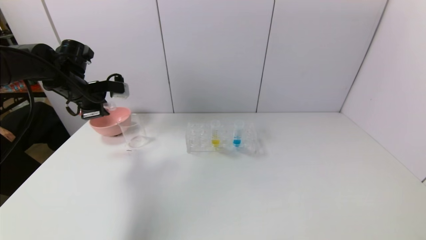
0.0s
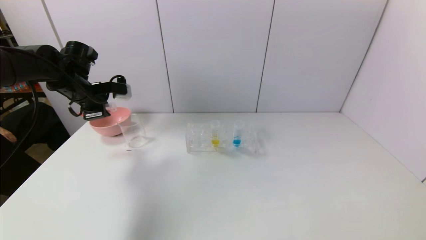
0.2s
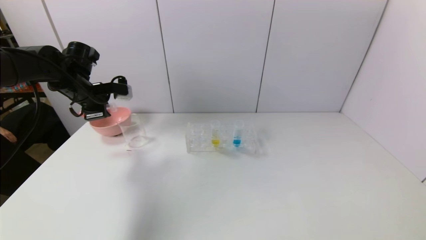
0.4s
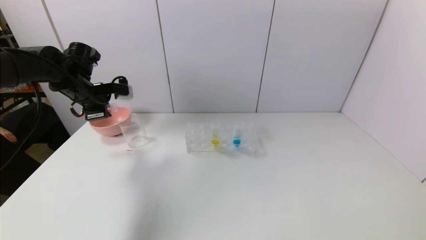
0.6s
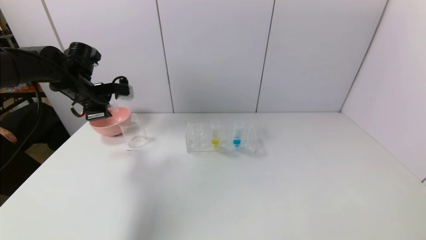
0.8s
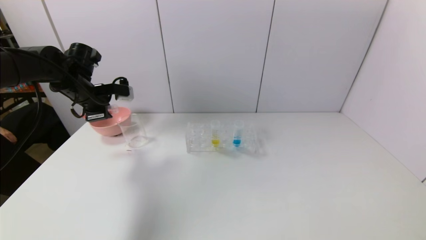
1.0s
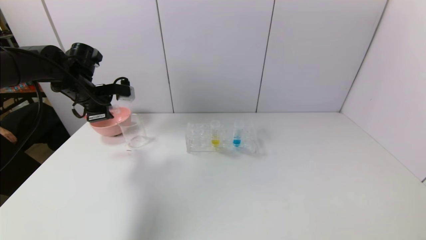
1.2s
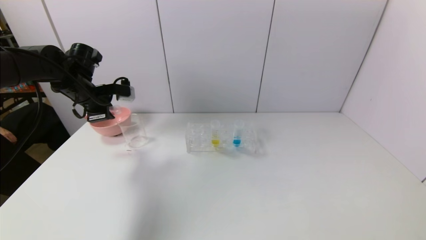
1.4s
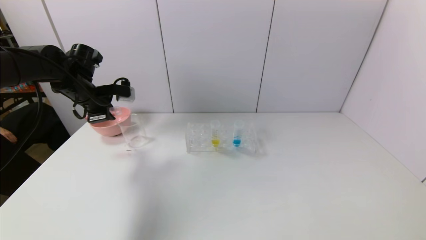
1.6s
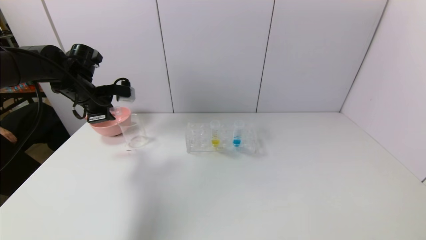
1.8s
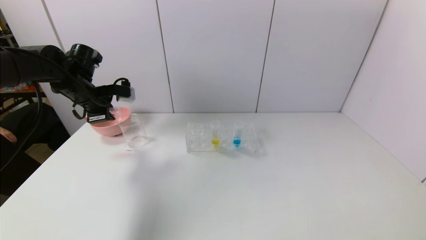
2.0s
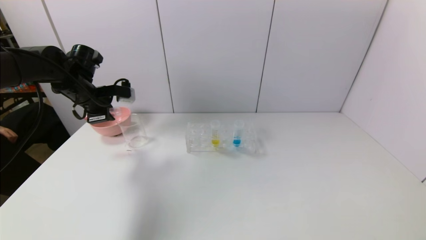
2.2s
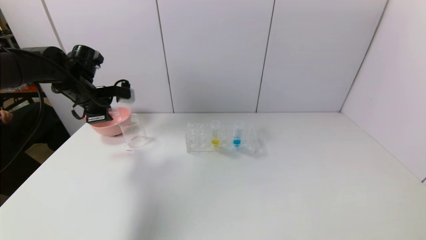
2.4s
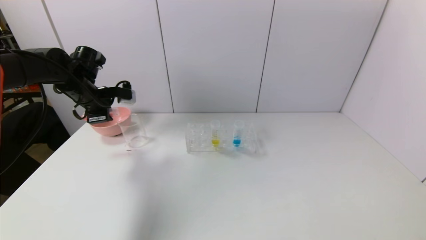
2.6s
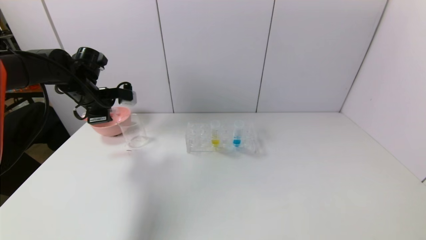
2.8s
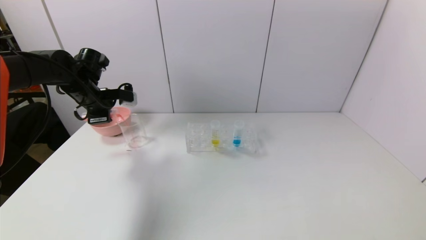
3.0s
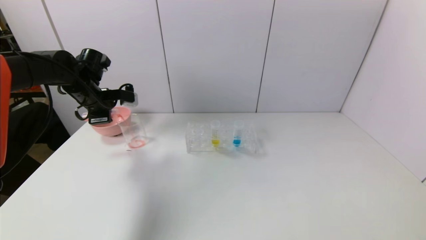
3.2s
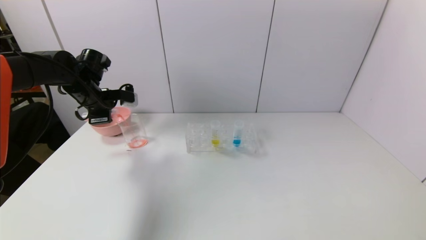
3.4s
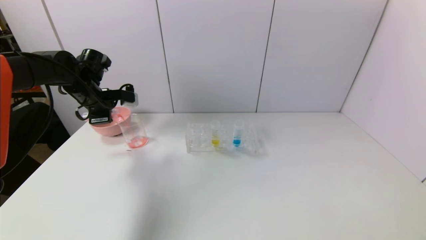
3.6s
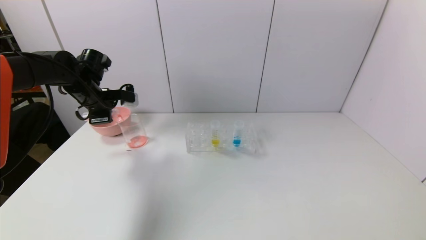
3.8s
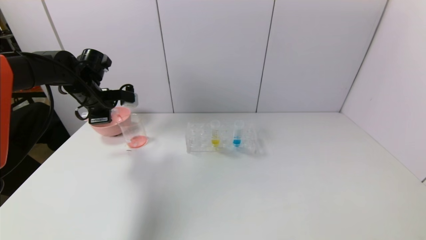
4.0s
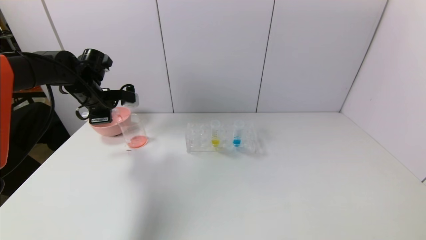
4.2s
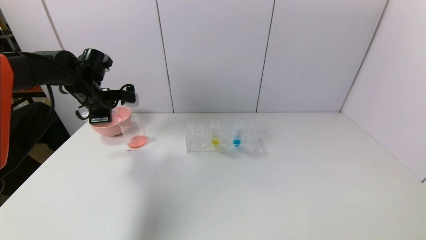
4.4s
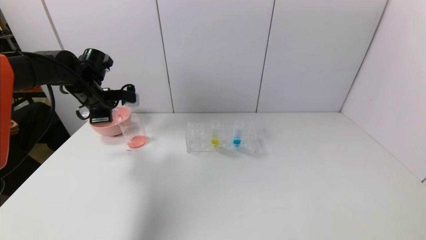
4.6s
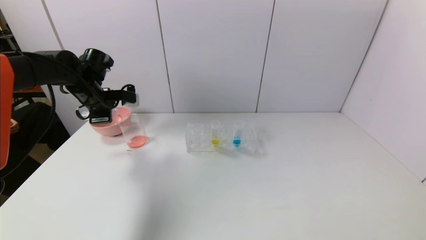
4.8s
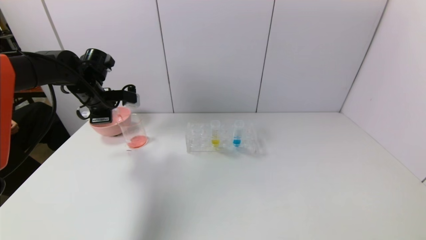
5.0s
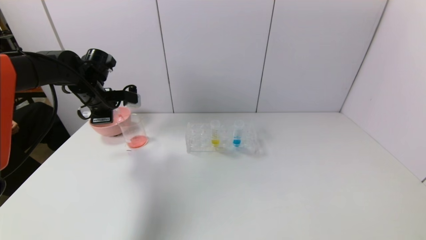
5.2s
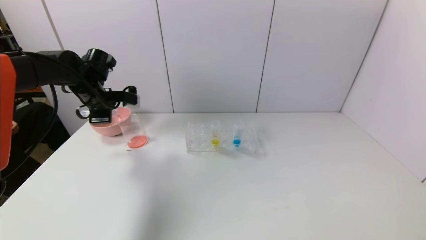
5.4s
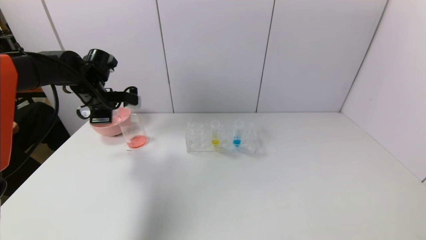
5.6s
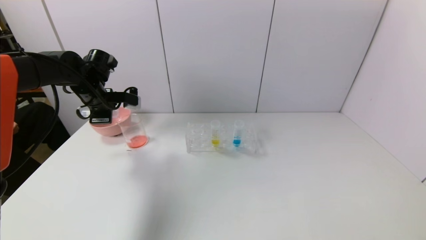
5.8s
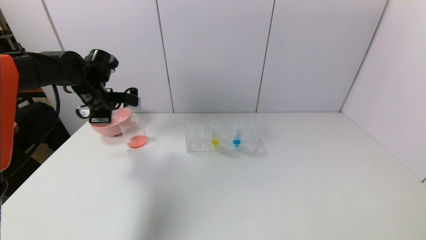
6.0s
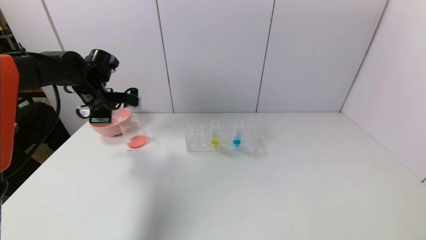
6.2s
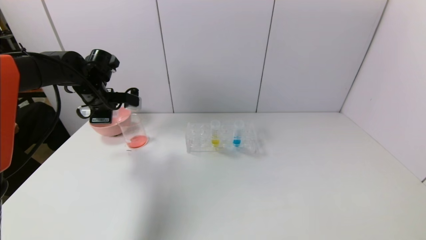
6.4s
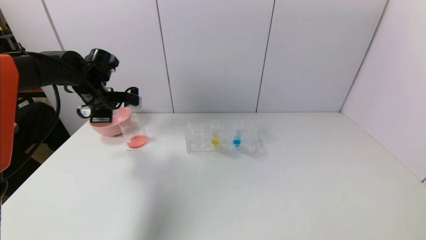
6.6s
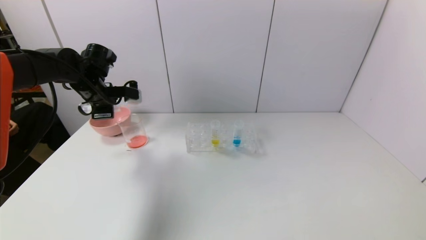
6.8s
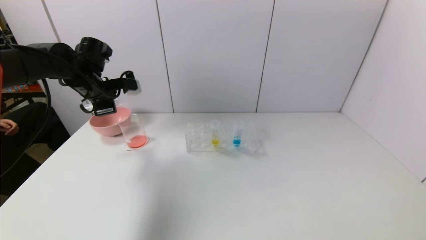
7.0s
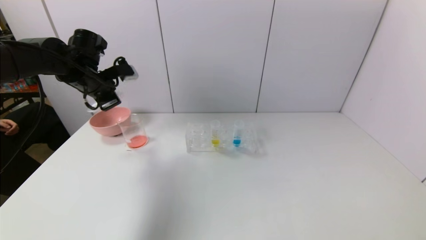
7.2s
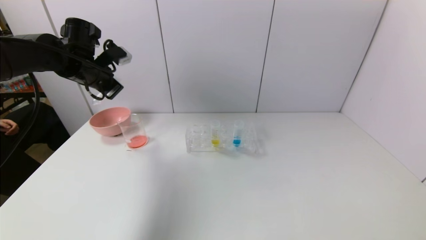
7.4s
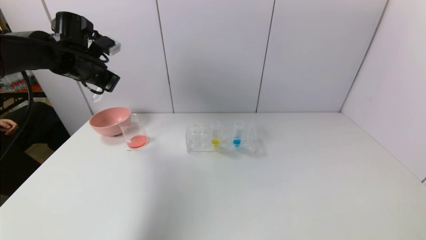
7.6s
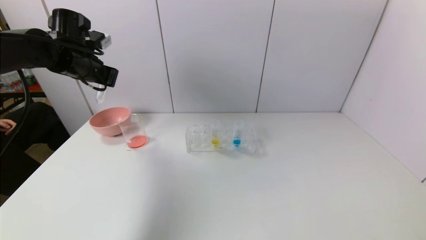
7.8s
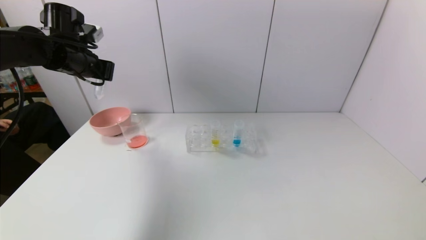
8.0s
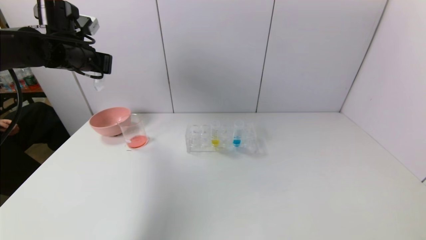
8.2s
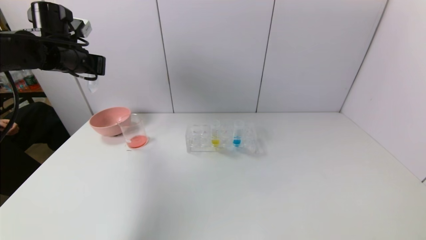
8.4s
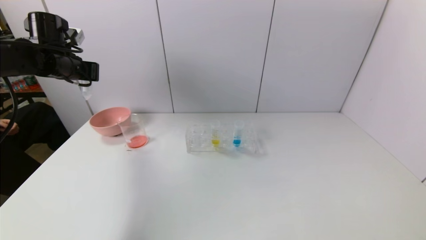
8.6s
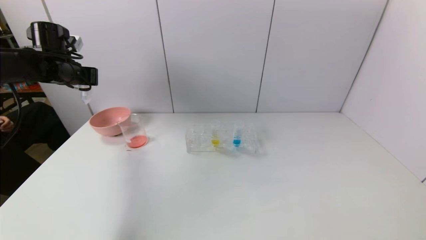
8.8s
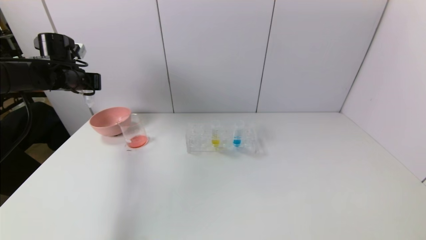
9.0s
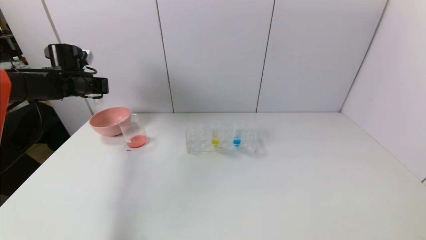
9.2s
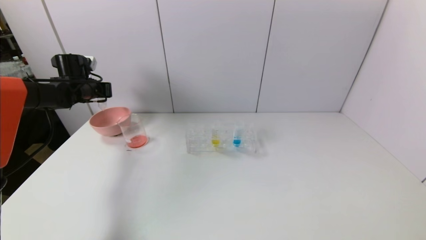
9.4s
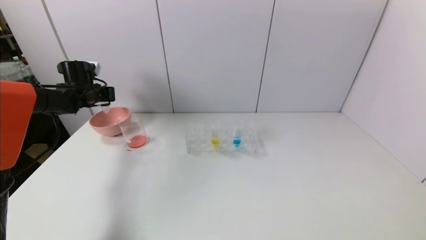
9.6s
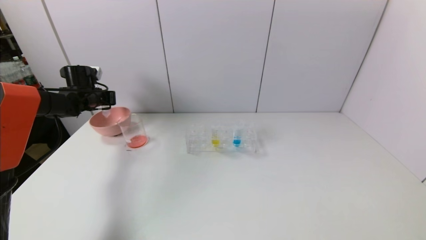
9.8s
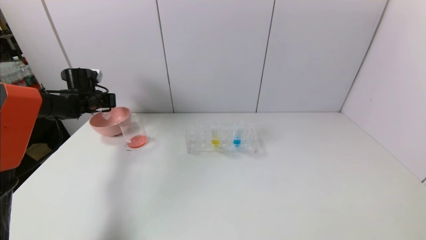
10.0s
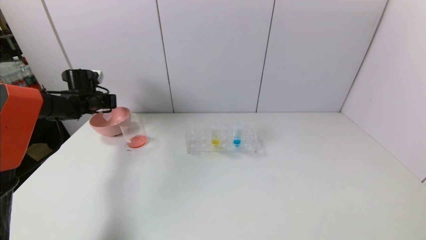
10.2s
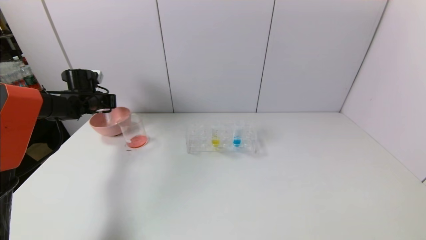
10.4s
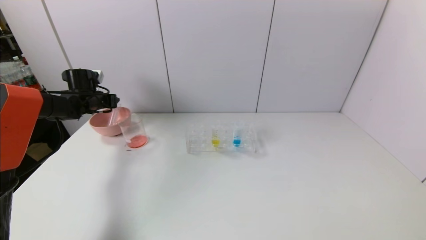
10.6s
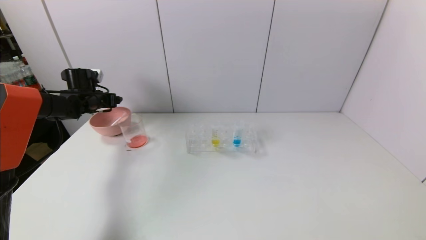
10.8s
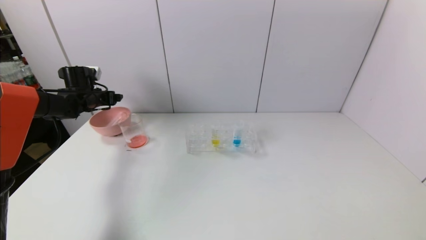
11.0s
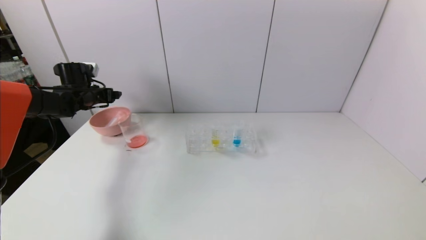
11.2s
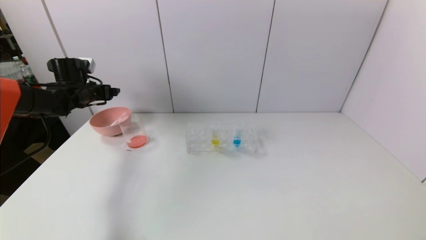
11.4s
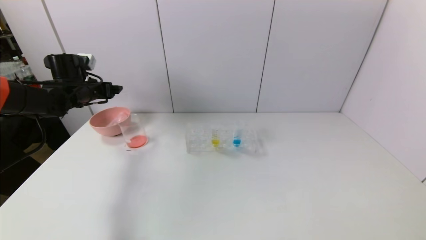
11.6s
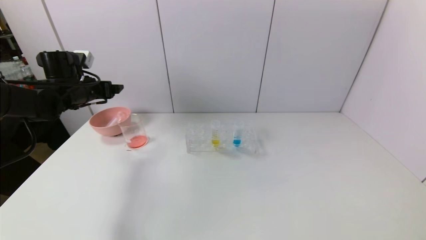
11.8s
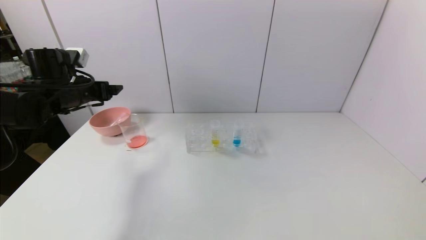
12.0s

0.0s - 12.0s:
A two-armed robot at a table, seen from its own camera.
Task of the whole recording: pick up the test tube with red pigment and the test tube with blue pigment by grippers and pour them into the container.
Step, 0.0s - 7.2s: Pour the red reagent into the graduated cylinder with the left gripper.
Step, 7.4s - 10.8s: Place the test tube into the bowl with the left gripper.
0.0s - 3.0s: The grippers move only a little.
3.0s - 4.4s: The two grippers keep their place.
4.4s - 6.0s: There are only small adjustments of the grippers.
6.0s - 7.6s: The left gripper travels upward by some 5 cm.
7.6s - 9.0s: The left gripper moves to the left, roughly 5 cm.
9.0s - 10.4s: The left gripper travels downward by approximately 10 cm.
10.4s - 12.0s: The left gripper goes about 15 cm backward, upward and to the right, and opens its fingers.

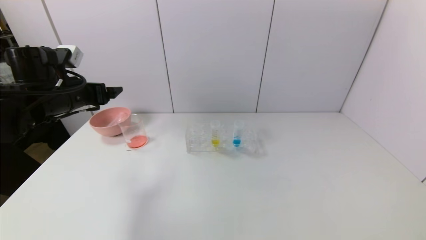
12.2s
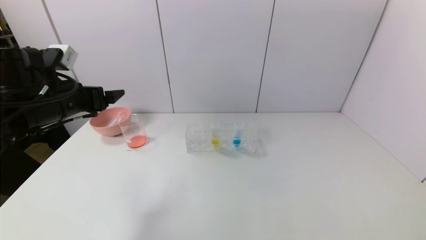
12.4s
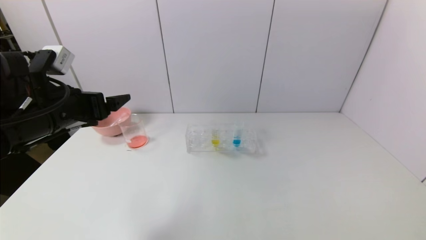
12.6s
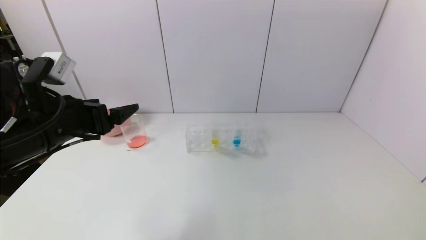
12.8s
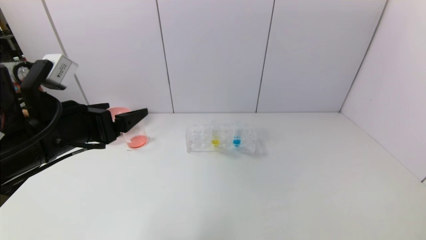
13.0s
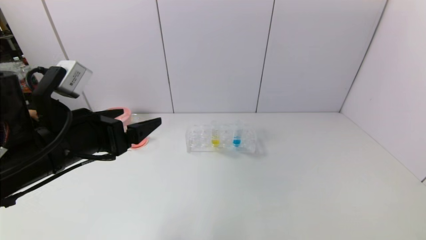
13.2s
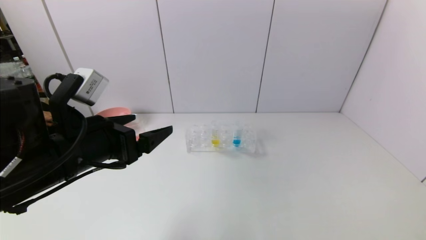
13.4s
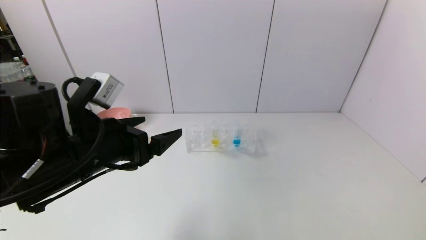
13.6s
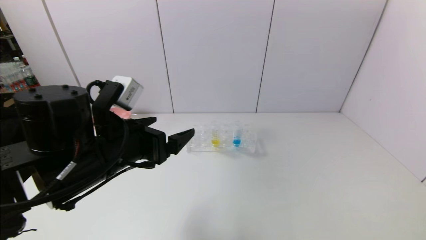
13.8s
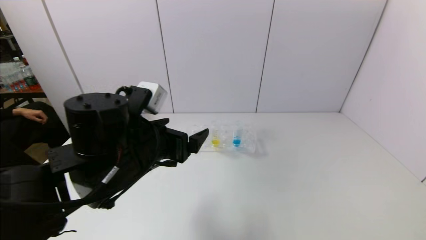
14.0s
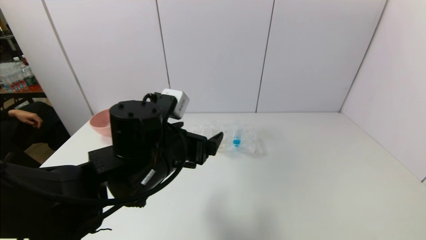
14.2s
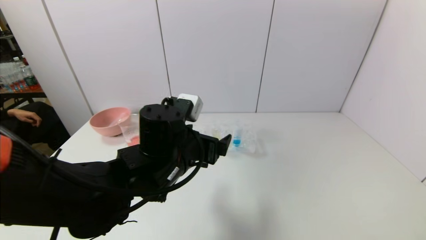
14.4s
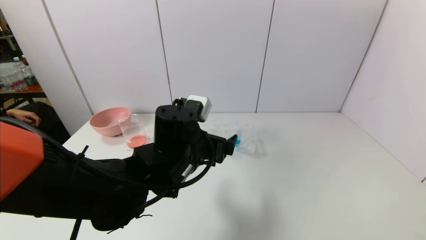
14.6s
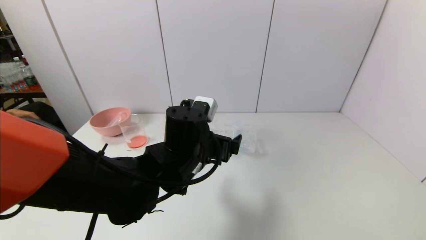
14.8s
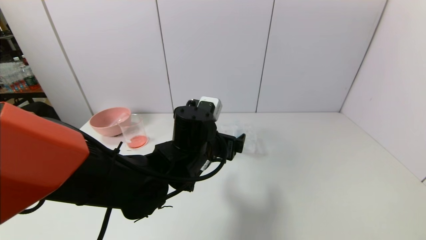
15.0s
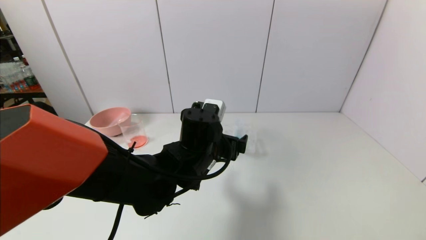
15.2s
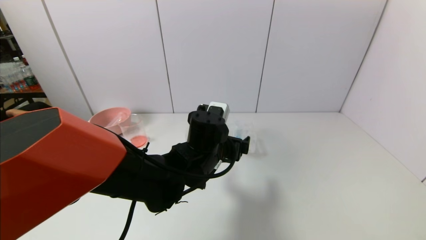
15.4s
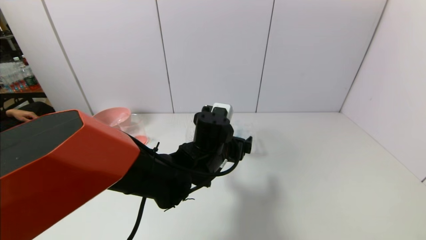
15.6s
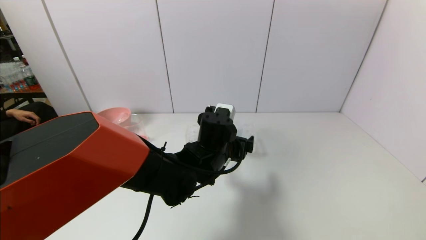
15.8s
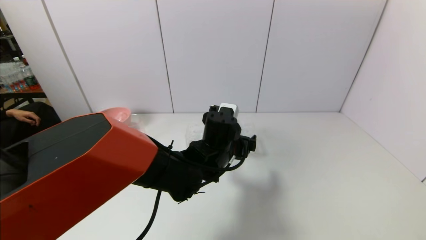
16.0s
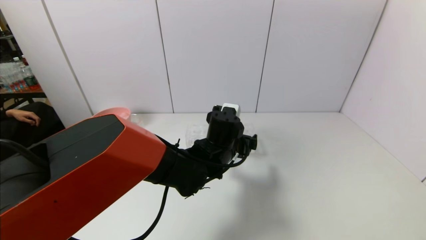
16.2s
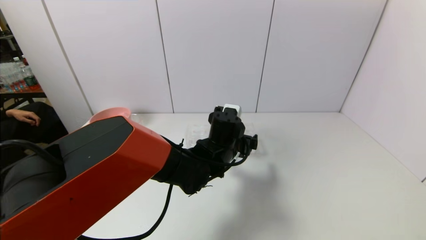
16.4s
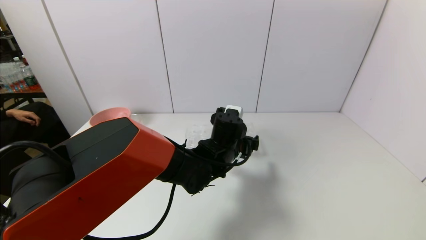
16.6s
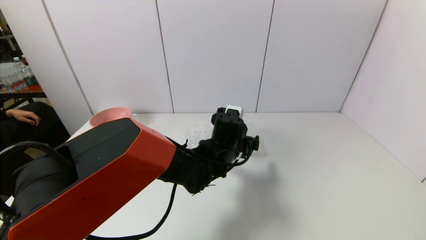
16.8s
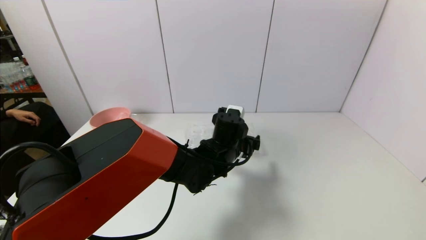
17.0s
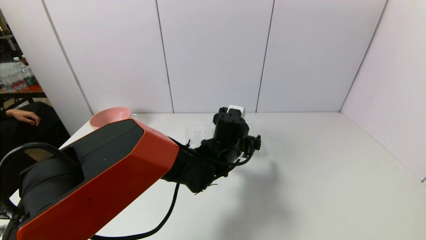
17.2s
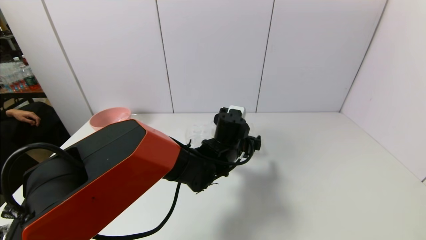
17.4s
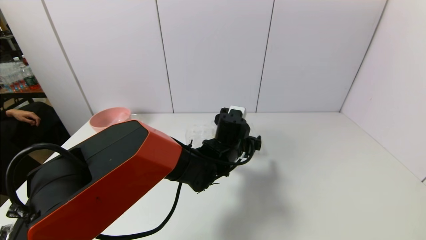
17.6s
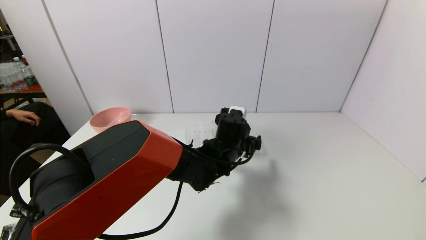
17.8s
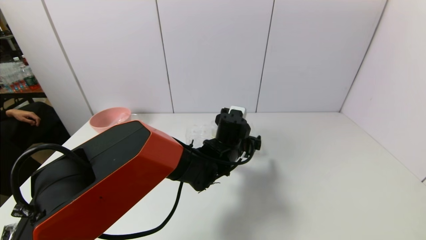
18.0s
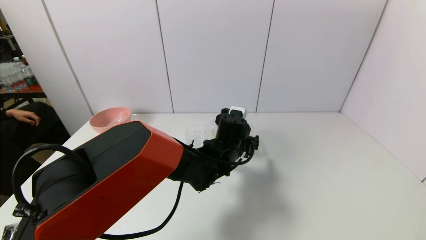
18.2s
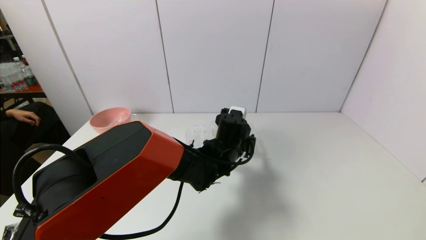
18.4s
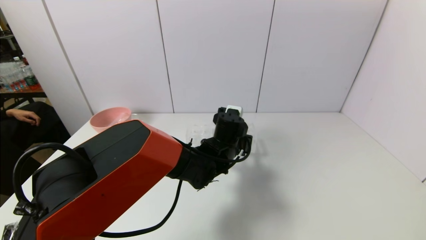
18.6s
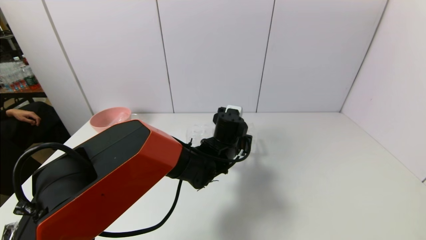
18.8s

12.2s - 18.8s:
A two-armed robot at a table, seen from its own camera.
Task of the whole recording: pick up the test tube with red pigment and the test tube with blue pigment by grippers and pour them into the container.
Step, 12.2s - 18.8s: Grasp the blue reagent with the left gripper.
12.2s - 13.8s: The left gripper goes about 20 cm to the right and backward.
13.8s - 15.4s: The left gripper moves to the right, forward and downward, roughly 20 cm.
15.4s - 17.2s: The left gripper goes roughly 5 cm forward.
17.2s - 18.8s: The left gripper closes.
